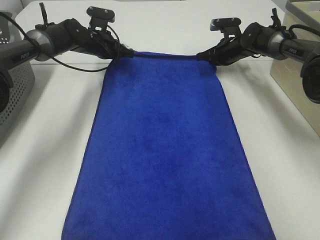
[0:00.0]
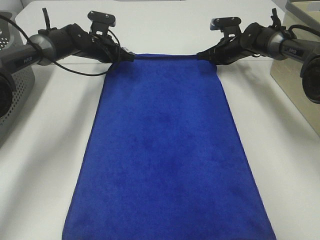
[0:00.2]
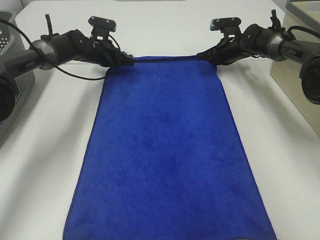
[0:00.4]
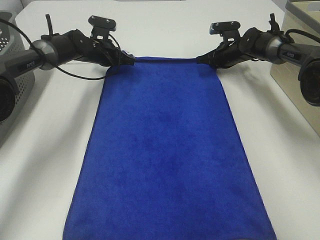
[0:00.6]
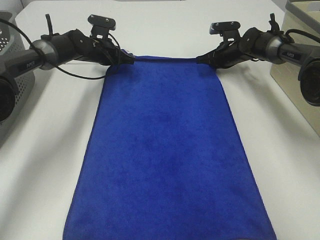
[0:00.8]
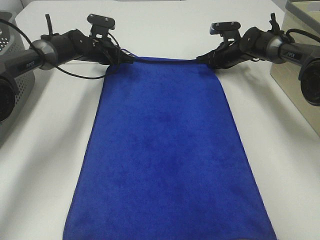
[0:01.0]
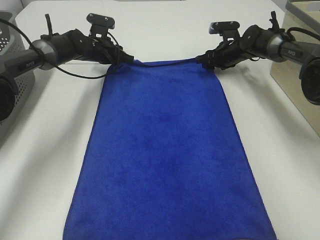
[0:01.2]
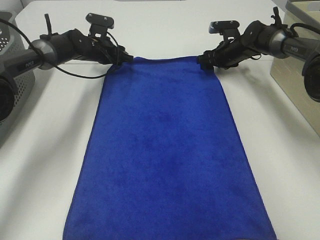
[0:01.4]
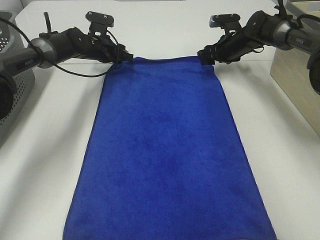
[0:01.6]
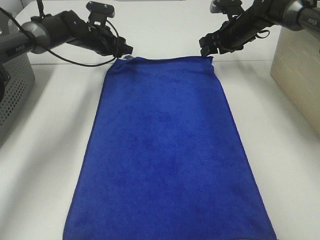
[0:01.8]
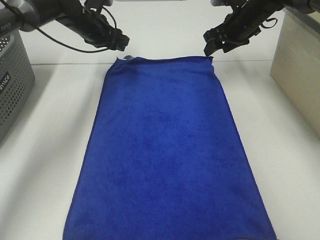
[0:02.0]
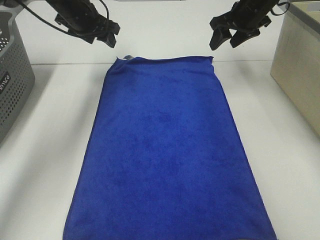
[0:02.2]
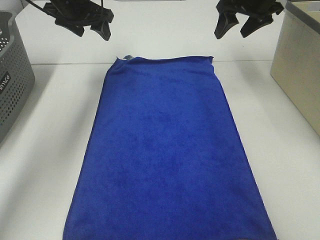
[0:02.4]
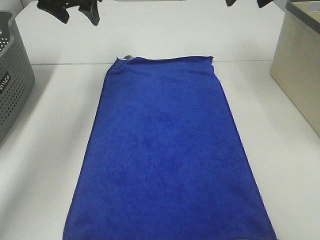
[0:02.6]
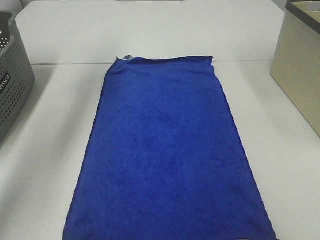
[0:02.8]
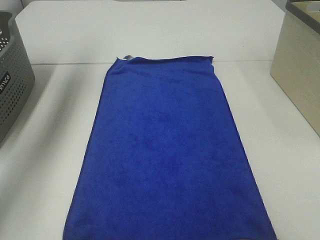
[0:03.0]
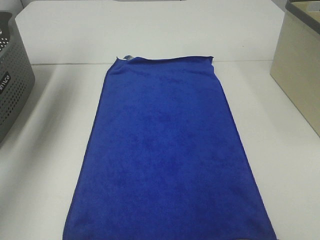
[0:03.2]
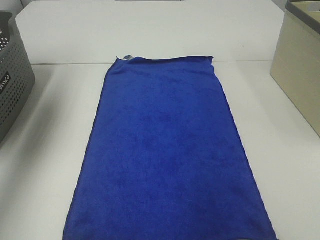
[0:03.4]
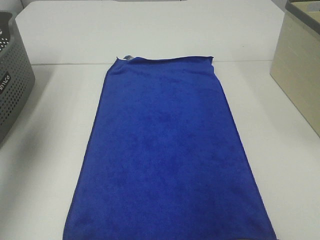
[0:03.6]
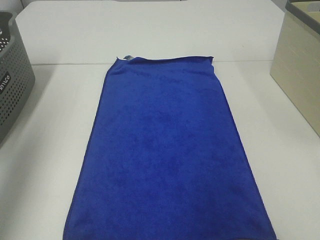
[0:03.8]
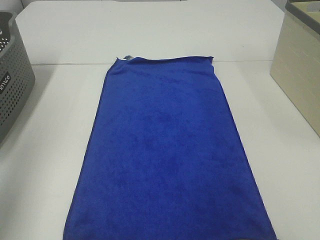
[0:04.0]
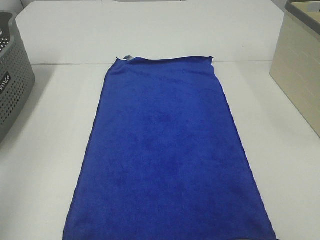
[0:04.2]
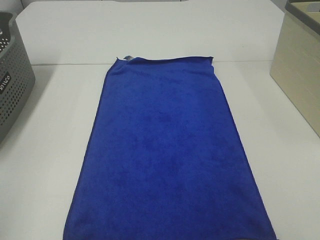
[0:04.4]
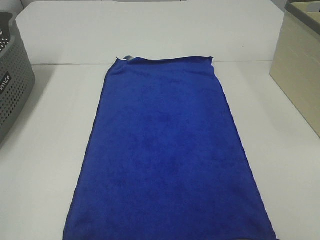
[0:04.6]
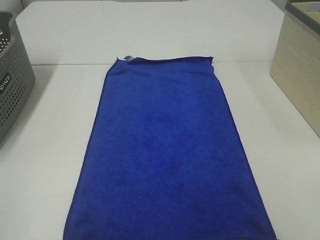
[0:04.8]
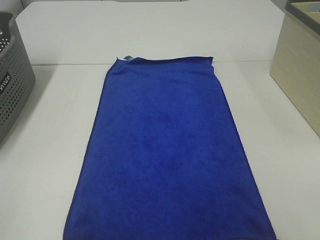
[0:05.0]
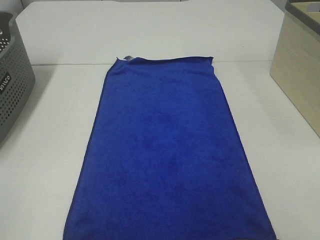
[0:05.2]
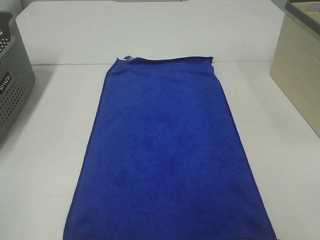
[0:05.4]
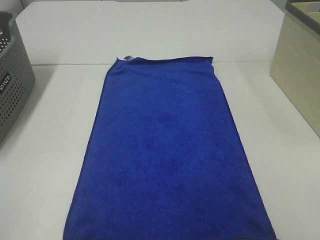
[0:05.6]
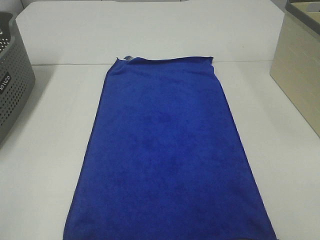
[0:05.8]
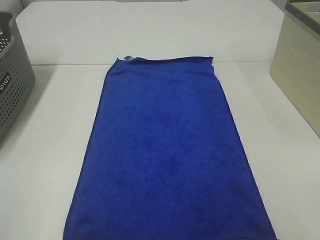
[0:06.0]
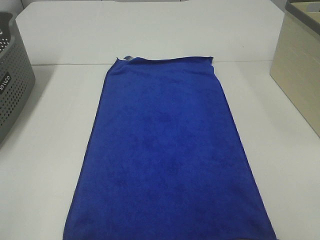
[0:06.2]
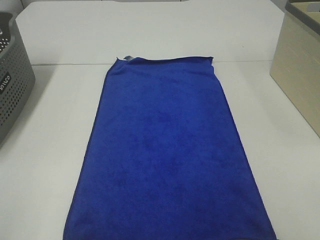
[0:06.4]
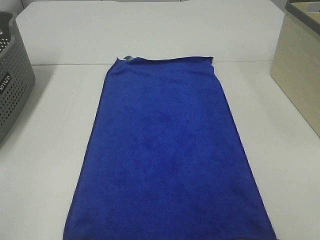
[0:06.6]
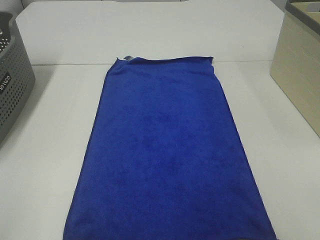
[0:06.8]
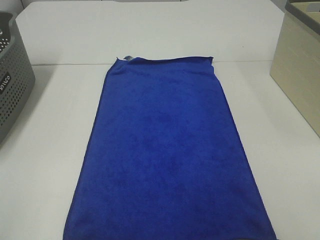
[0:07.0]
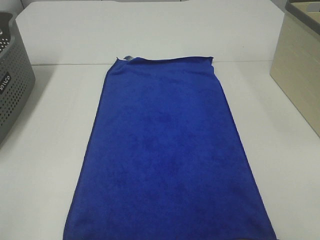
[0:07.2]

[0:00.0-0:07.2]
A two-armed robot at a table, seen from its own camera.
Task of the whole recording: Remove the towel and place it.
0:00.0 to 0:01.4: The left gripper opens. Meanwhile the right gripper opens.
0:01.4 to 0:02.8: The right gripper travels upward and backward by some 35 cm. The left gripper shifts roughly 25 cm upward.
0:02.8 to 0:04.4: The left gripper moves backward, approximately 40 cm.
0:05.8 to 0:07.2: Both grippers stay about where they are.

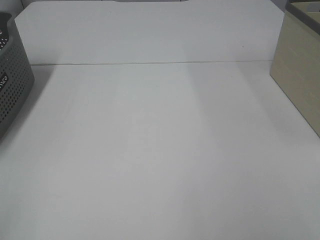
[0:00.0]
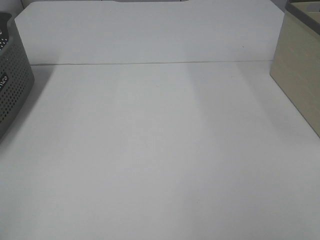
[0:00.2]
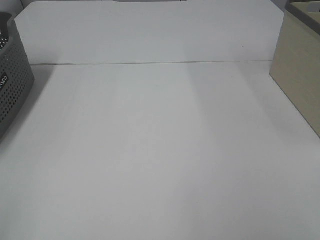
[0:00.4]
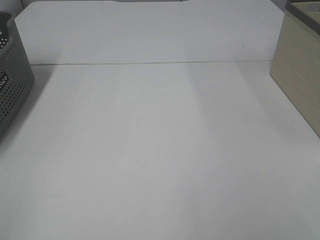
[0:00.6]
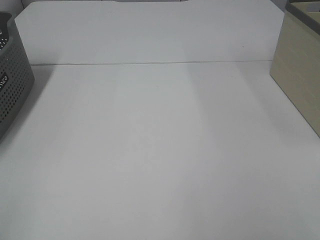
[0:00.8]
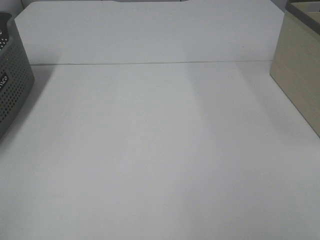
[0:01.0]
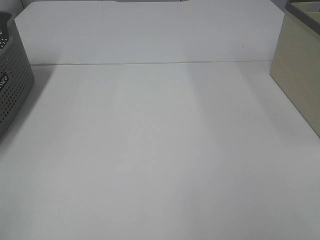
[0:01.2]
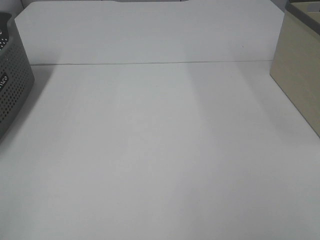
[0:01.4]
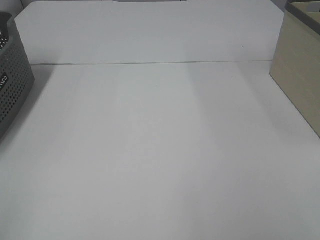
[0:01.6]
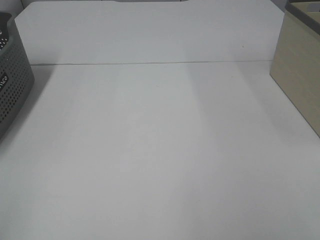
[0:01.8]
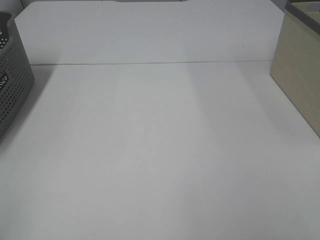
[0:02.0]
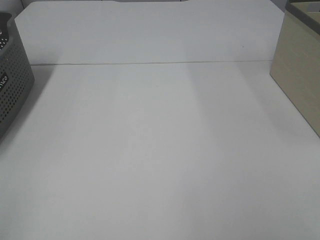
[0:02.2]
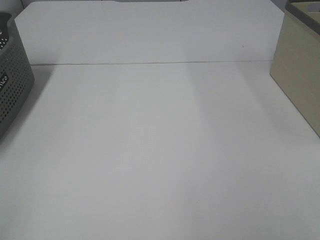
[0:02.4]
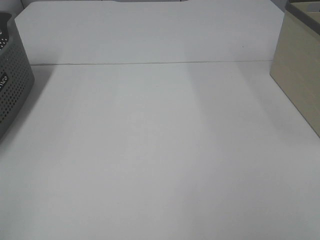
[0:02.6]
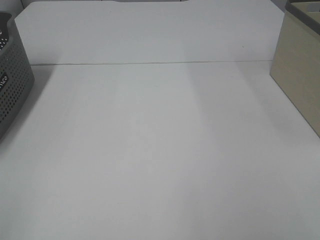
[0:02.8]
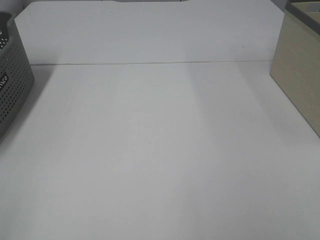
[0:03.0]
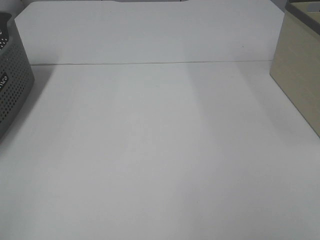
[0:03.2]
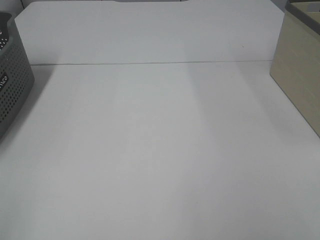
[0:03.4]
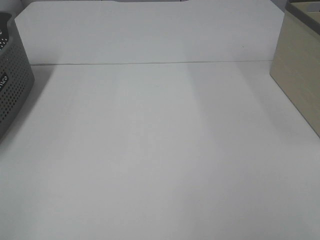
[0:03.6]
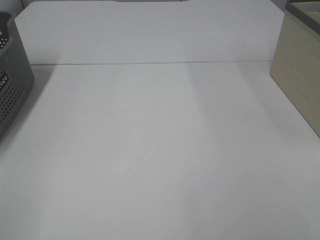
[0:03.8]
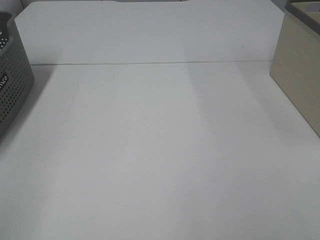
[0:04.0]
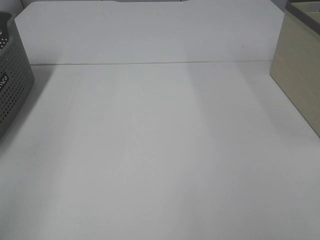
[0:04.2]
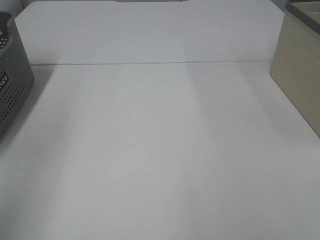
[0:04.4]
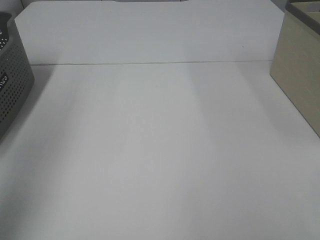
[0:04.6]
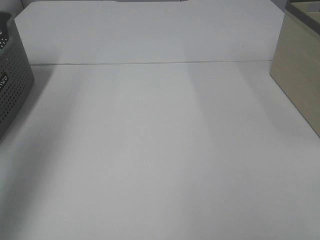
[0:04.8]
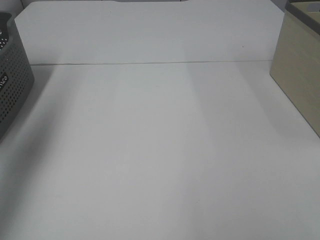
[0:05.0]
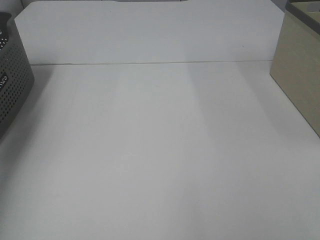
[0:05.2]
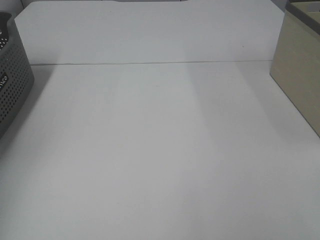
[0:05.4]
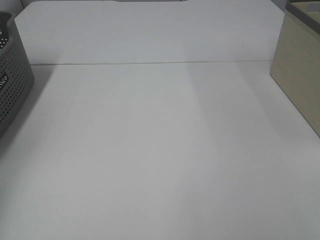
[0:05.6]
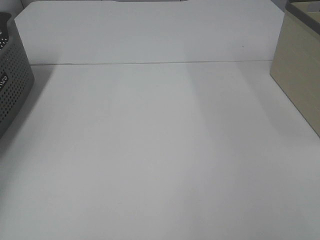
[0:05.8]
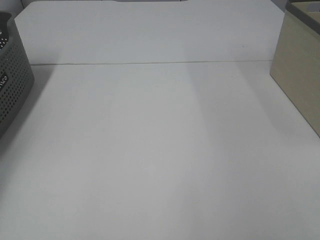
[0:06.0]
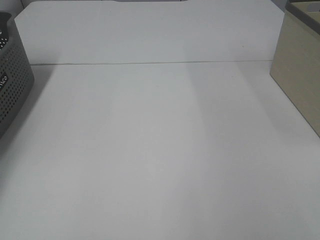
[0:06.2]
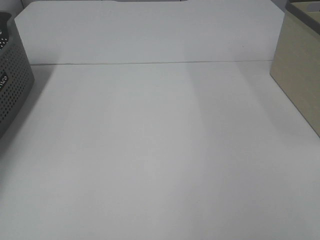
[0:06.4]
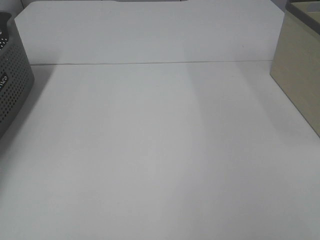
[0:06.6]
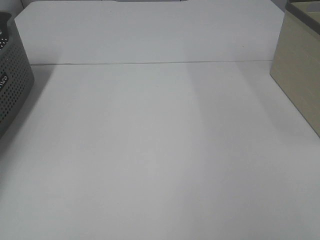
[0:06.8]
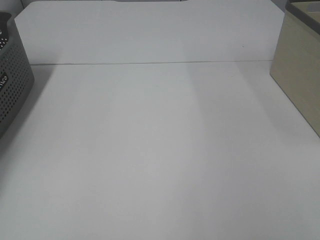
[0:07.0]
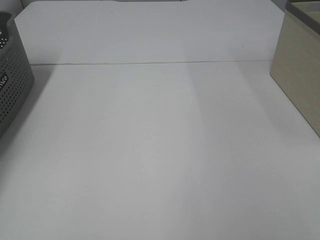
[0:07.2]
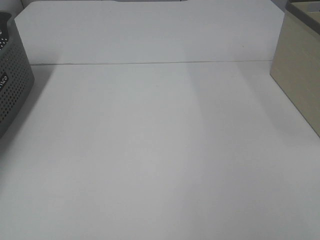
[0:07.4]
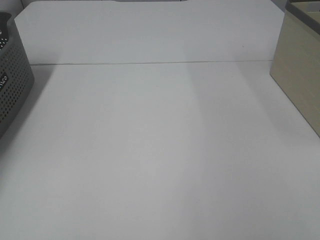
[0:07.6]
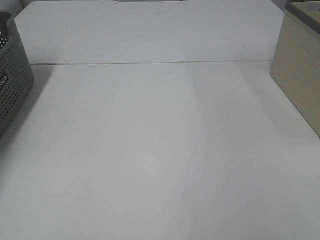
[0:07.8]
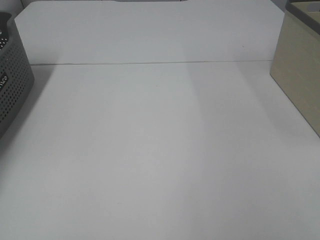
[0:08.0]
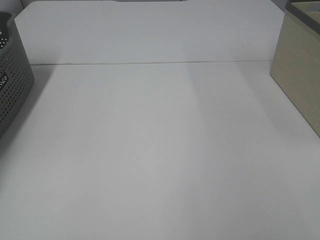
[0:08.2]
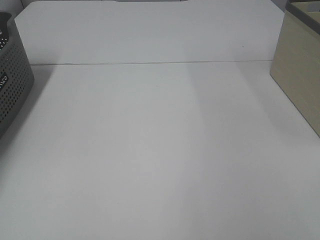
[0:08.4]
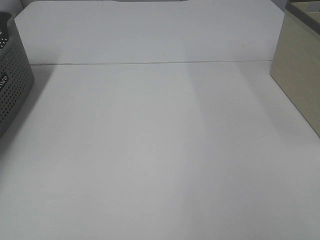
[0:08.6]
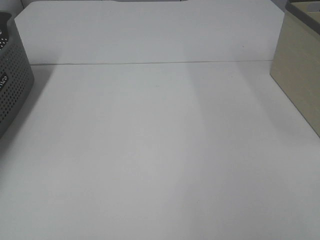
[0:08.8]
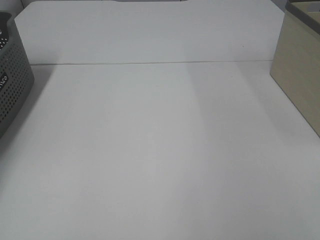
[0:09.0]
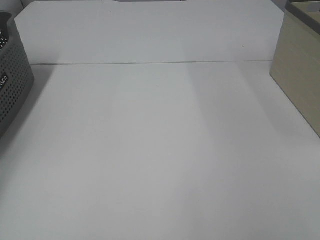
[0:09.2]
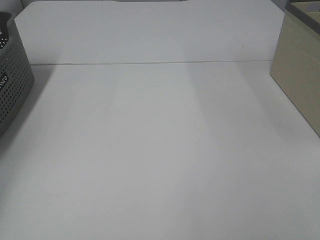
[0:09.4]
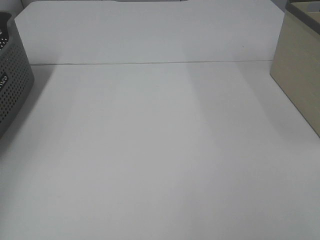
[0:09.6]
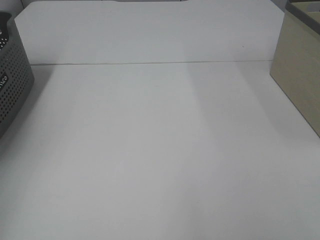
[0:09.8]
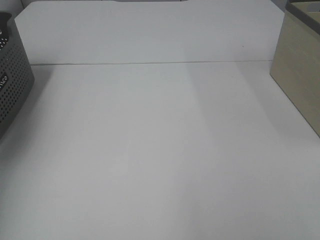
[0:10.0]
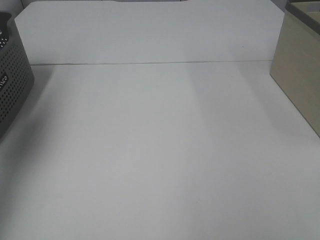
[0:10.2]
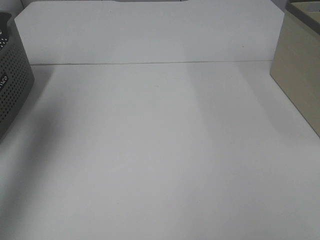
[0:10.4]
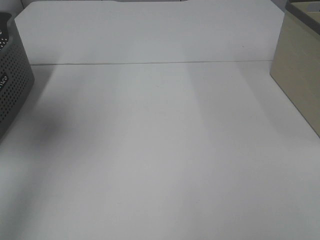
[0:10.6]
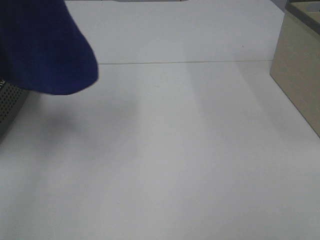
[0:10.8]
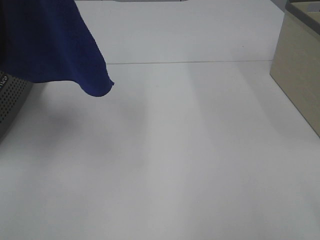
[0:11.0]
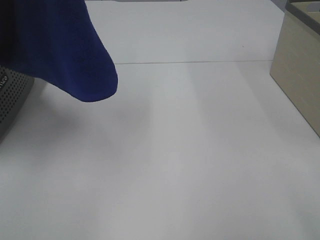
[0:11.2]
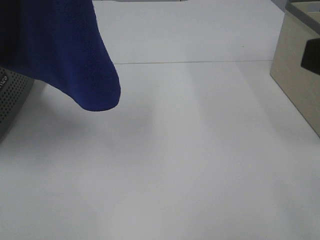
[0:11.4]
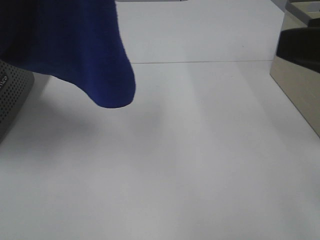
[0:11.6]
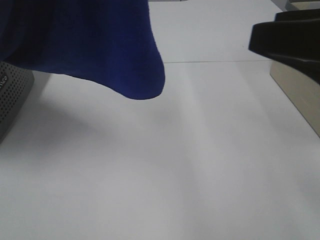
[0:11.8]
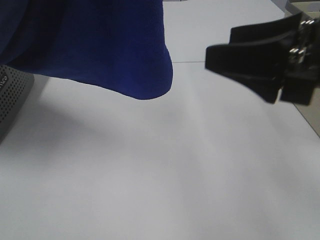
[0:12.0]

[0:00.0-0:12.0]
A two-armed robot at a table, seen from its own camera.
Task of the whole recording: Remove the towel and place it.
0:01.6 to 0:03.0: The two grippers keep their place.
0:03.0 to 0:04.4: The left gripper shifts some 20 cm upward and forward.
0:04.4 to 0:06.0: The left gripper goes about 40 cm forward, downward and to the left.
0:09.0 to 0:10.4: The left gripper moves upward, backward and to the right, some 40 cm.
0:10.4 to 0:12.0: The left gripper heads to the right, covering some 20 cm. Meanwhile the right gripper heads forward and to the left, covering some 20 cm.

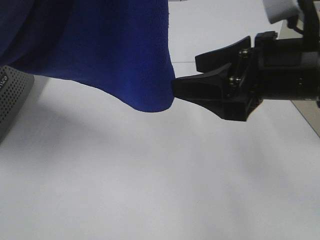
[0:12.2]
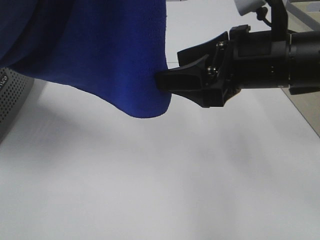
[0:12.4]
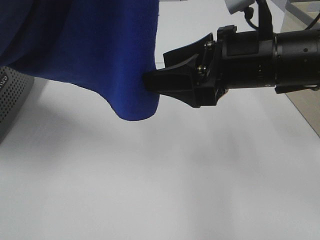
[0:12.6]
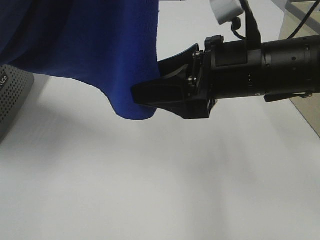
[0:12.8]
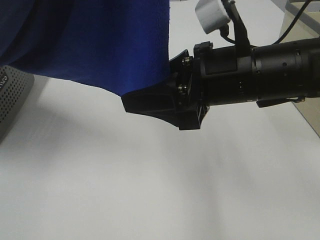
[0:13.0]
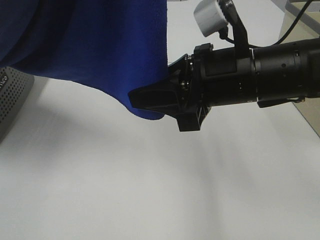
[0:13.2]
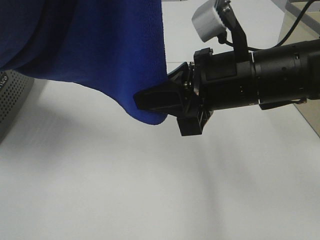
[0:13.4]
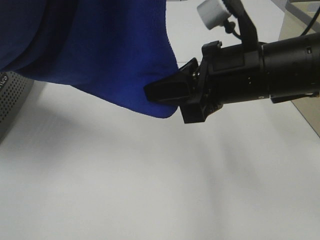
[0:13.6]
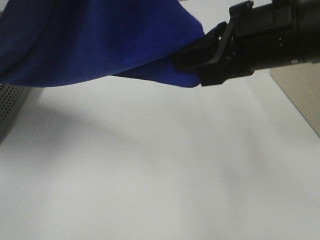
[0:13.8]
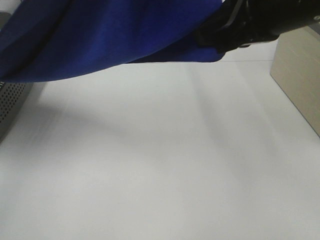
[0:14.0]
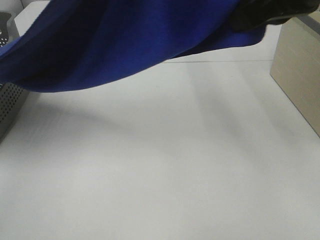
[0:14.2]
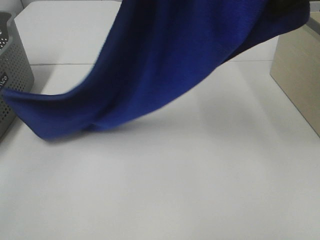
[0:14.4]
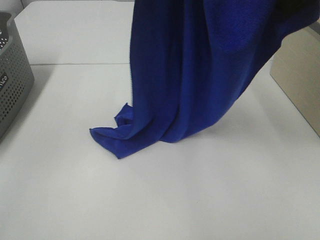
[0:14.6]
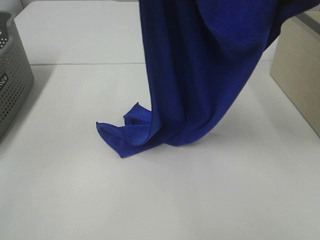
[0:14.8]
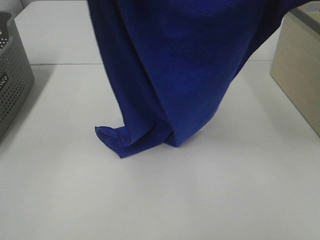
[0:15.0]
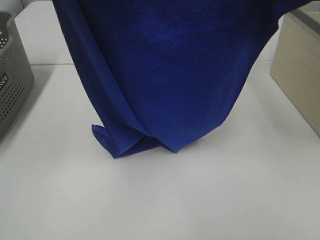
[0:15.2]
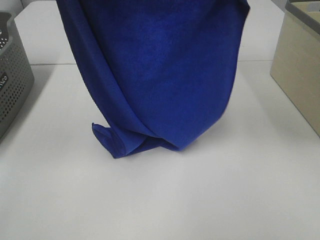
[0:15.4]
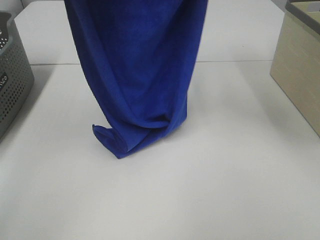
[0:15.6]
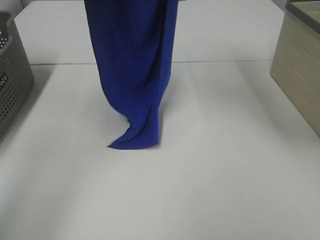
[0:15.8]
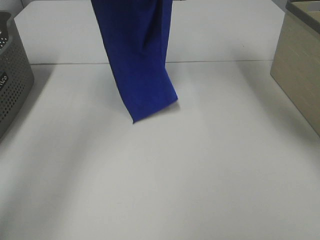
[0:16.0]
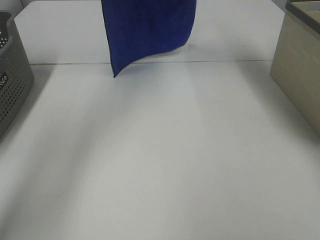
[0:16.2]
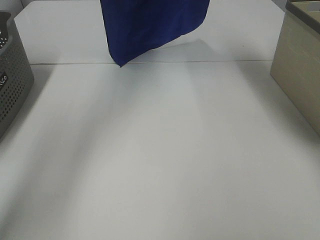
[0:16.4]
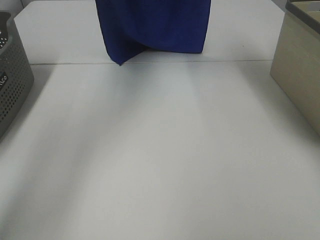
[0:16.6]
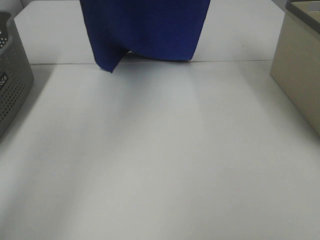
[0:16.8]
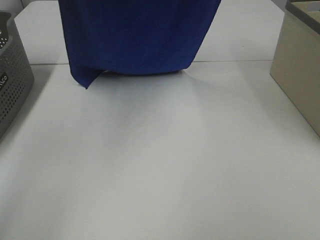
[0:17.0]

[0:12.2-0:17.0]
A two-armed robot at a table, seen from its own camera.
Task of the whole recording: Remove the towel and place it.
0:12.2 to 0:13.8: The right gripper ends up some 5 cm from where it was, and closes.
0:13.8 to 0:15.4: The left gripper heads forward and downward, covering approximately 10 cm. Meanwhile the right gripper goes some 15 cm upward and forward.
0:15.4 to 0:17.0: The left gripper goes some 5 cm upward, and travels forward and back again, roughly 15 cm each way. The right gripper heads upward and forward, covering roughly 10 cm.
